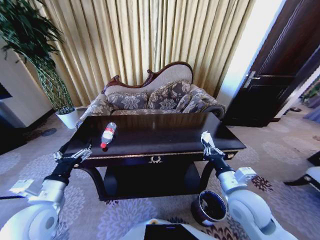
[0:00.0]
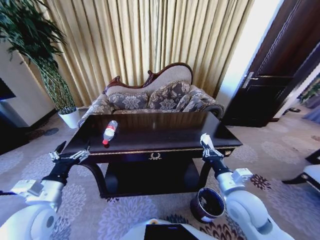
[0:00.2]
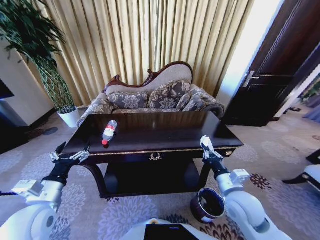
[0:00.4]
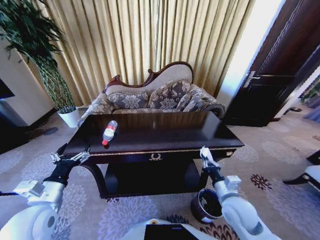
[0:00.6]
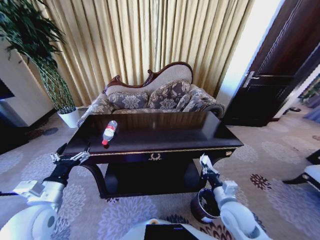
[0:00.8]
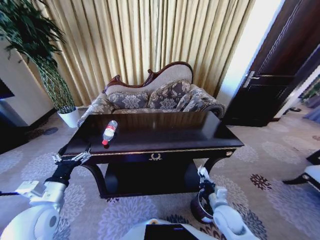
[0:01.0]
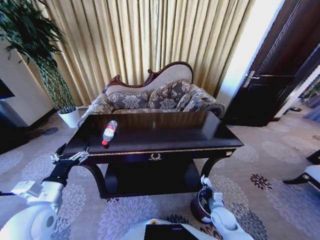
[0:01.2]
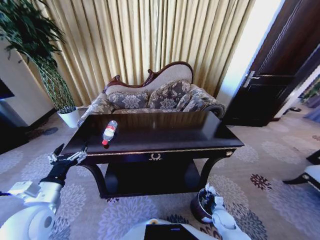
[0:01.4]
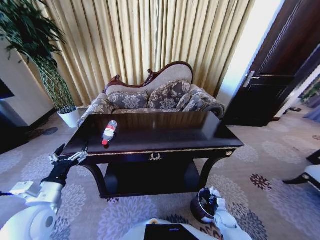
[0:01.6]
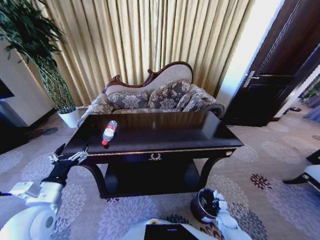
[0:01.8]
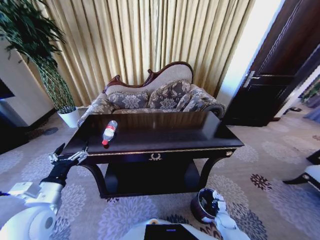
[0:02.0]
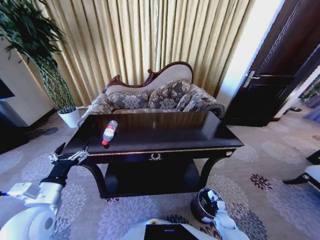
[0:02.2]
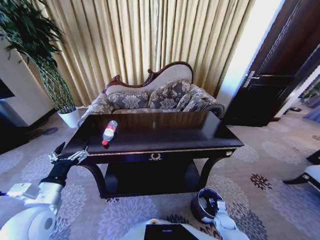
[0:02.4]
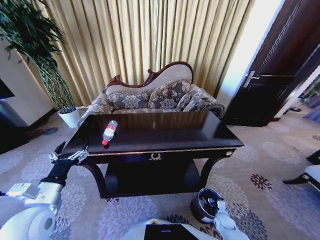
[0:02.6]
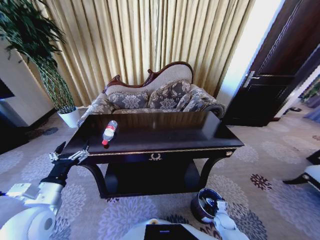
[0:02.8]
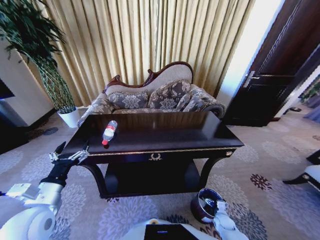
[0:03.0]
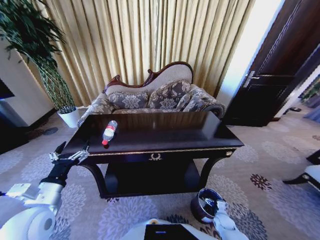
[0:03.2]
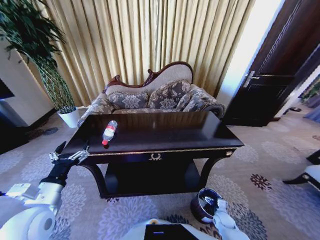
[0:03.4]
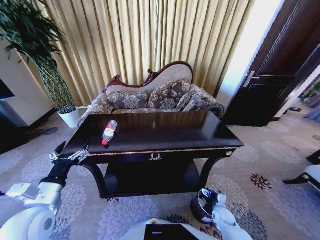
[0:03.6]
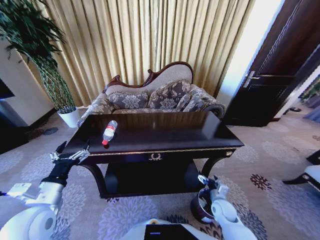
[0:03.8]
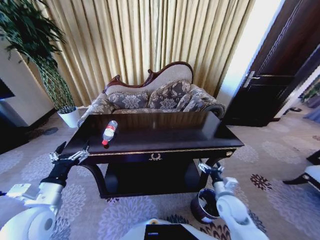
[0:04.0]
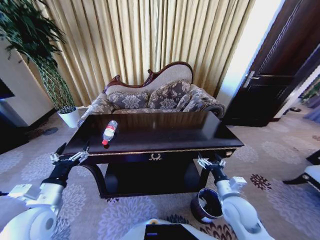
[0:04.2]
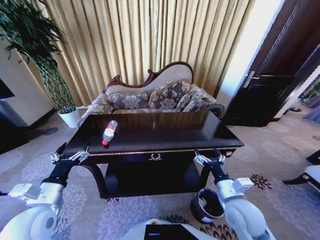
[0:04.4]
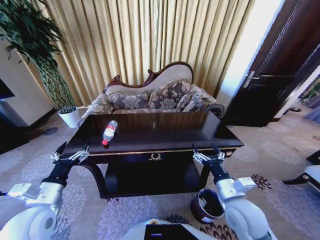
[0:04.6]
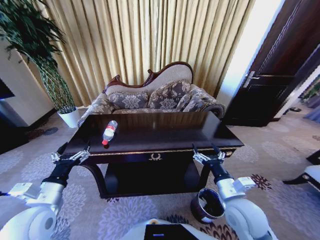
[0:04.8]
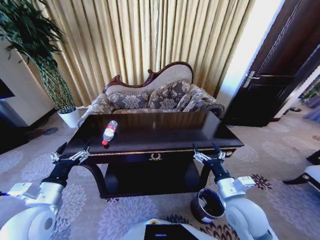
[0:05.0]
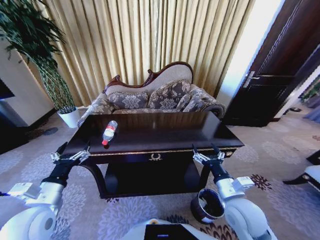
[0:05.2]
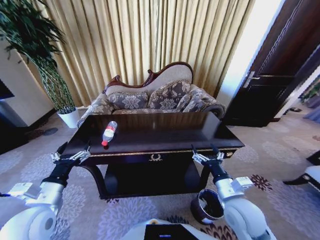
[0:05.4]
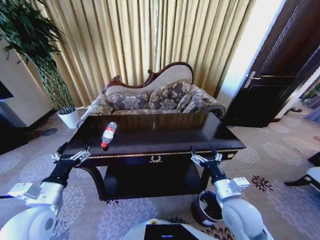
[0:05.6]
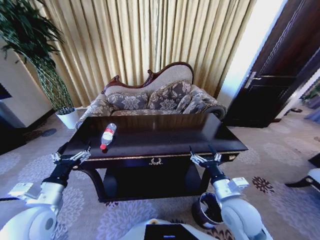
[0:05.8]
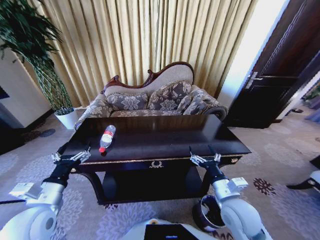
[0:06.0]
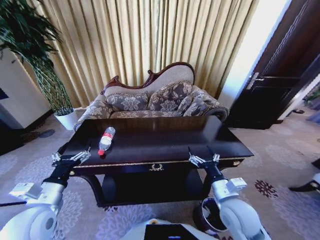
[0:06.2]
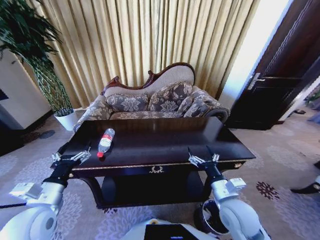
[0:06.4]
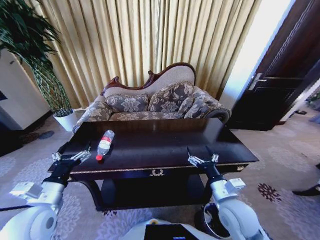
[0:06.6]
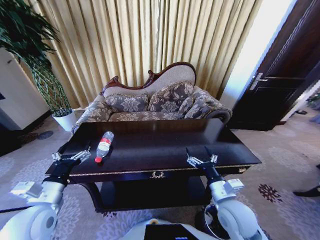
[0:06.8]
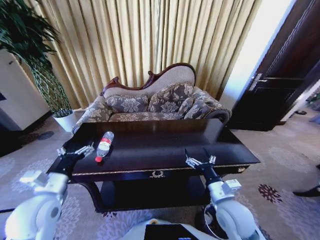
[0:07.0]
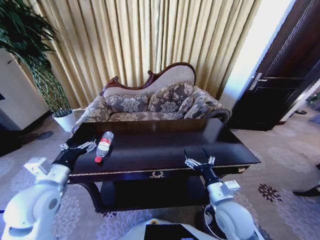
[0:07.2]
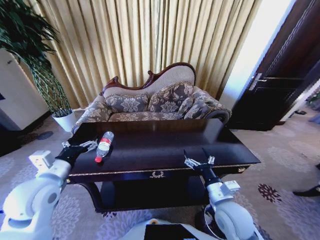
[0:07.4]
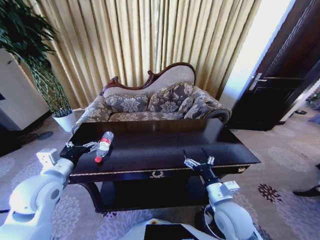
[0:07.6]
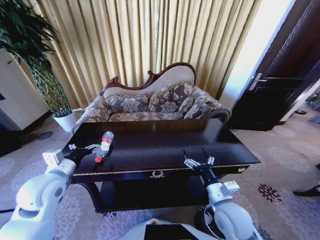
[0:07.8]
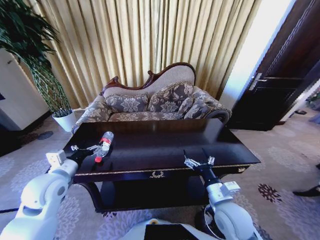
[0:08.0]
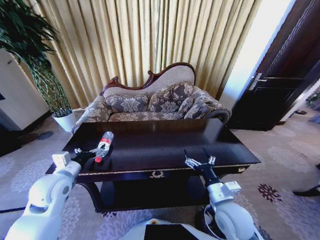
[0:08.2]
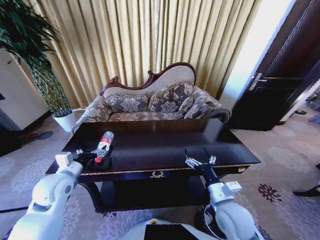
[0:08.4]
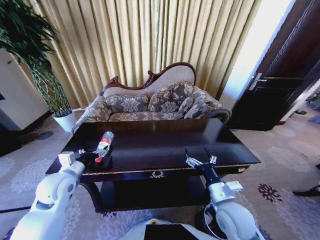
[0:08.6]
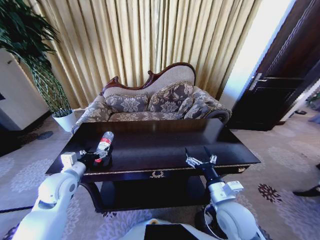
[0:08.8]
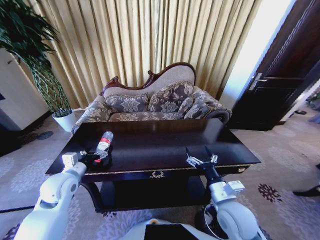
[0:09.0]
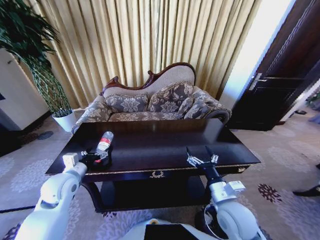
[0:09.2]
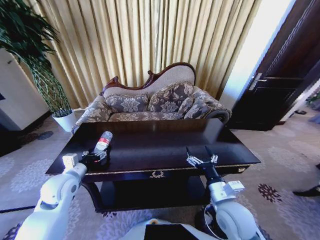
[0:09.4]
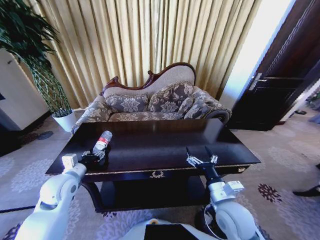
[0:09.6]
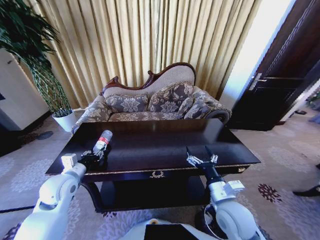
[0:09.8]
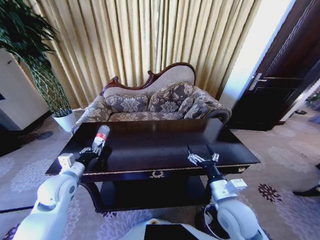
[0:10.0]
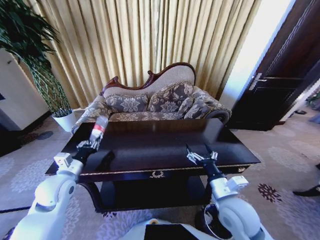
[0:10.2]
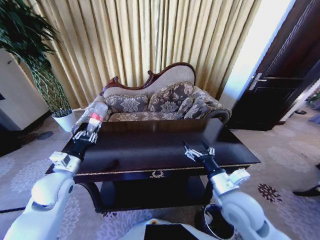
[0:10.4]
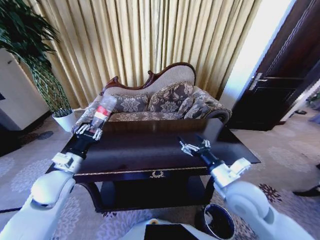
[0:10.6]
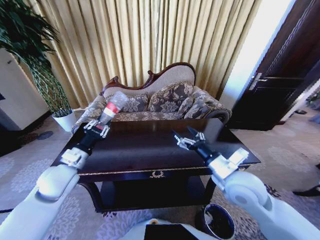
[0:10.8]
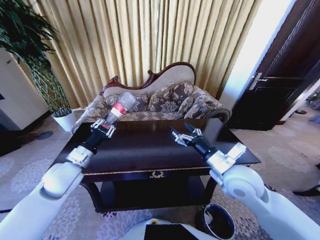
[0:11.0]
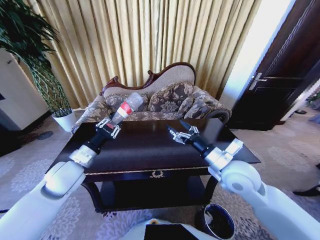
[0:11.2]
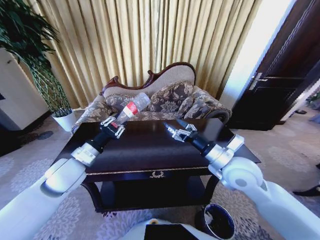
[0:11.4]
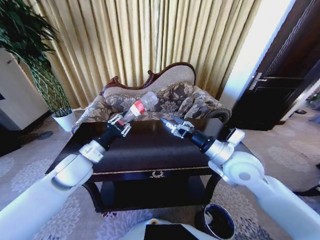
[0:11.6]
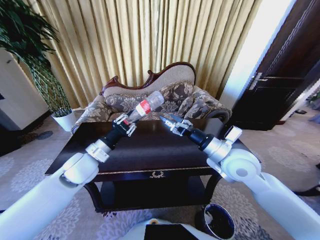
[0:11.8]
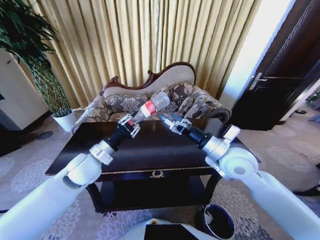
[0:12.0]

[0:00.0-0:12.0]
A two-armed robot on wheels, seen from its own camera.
Task of the whole recording: Move to the front of the table and place the trash on the table into the trash bin.
0:00.0 to 0:01.6: The right gripper is displaced downward by about 35 cm.
0:01.6 to 0:03.0: The right gripper opens its fingers.
0:03.0 to 0:04.4: The right gripper heads upward, covering approximately 35 cm.
0:06.0 to 0:07.6: The left gripper heads forward, covering some 5 cm.
0:07.6 to 0:09.0: The left gripper is displaced downward by about 5 cm.
0:09.0 to 0:10.4: The left gripper closes its fingers.
0:10.4 to 0:12.0: The right gripper travels forward and upward by some 15 cm; the left gripper travels to the right by roughly 10 cm.

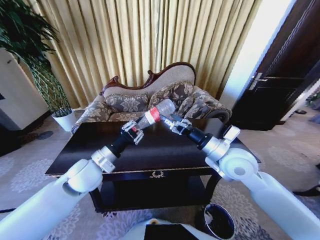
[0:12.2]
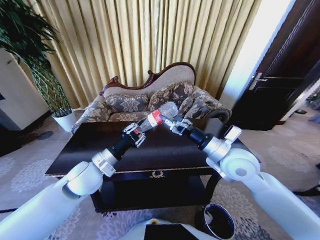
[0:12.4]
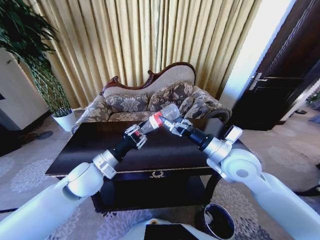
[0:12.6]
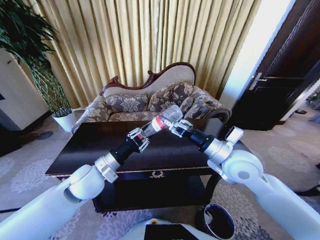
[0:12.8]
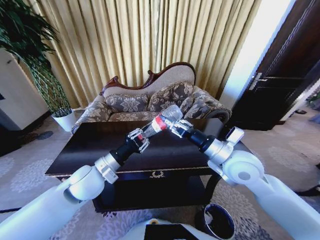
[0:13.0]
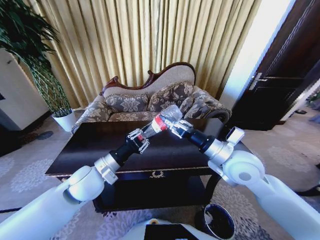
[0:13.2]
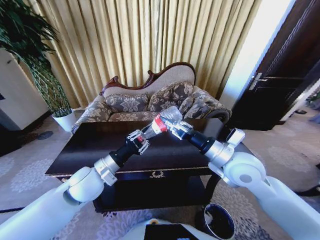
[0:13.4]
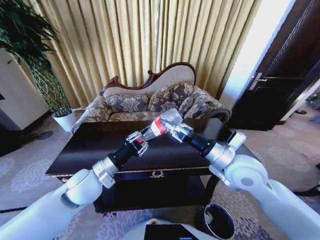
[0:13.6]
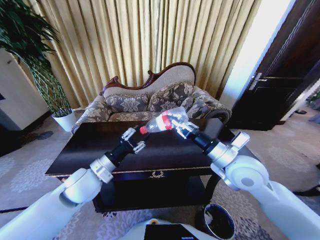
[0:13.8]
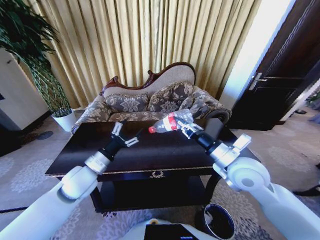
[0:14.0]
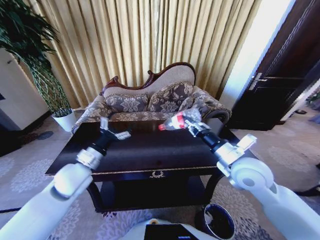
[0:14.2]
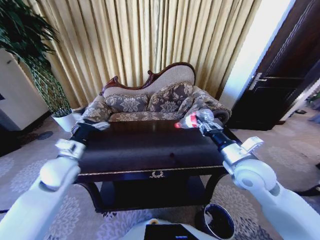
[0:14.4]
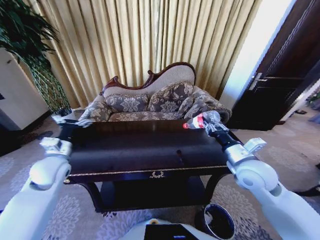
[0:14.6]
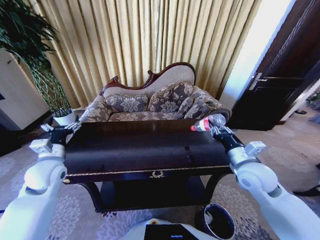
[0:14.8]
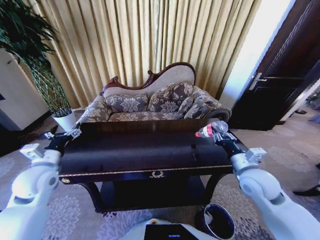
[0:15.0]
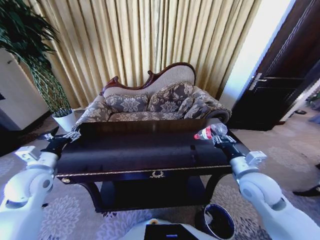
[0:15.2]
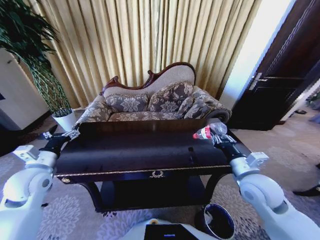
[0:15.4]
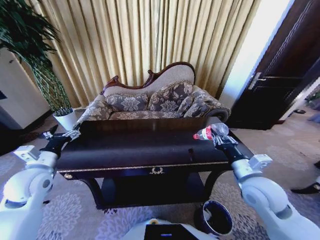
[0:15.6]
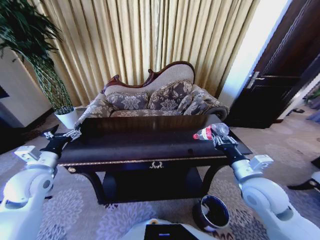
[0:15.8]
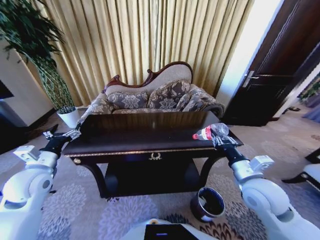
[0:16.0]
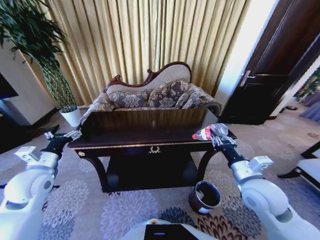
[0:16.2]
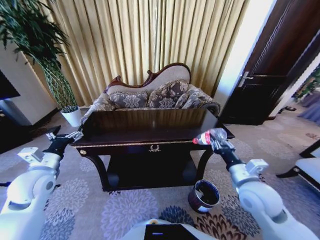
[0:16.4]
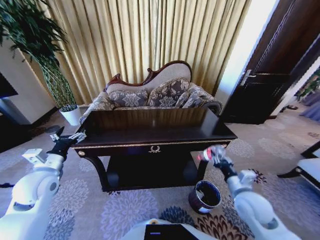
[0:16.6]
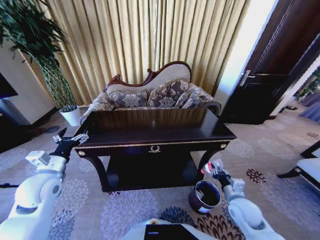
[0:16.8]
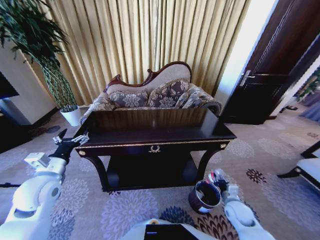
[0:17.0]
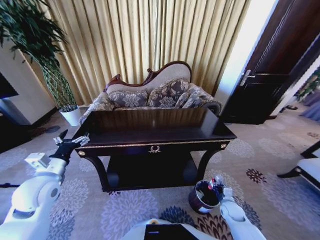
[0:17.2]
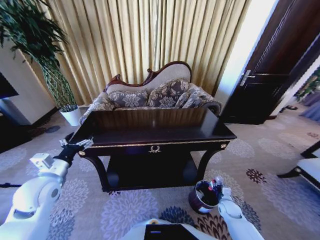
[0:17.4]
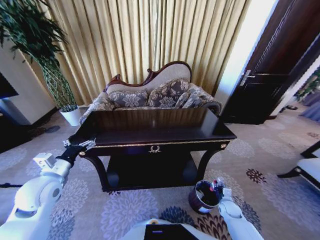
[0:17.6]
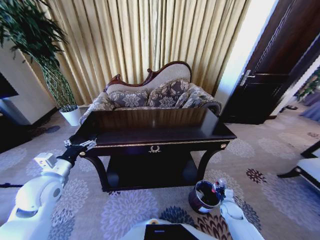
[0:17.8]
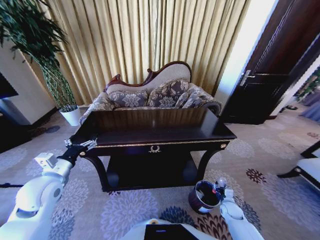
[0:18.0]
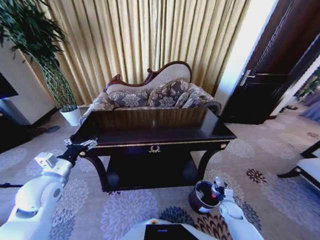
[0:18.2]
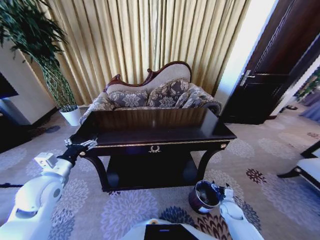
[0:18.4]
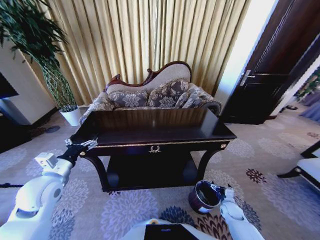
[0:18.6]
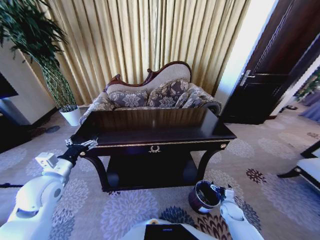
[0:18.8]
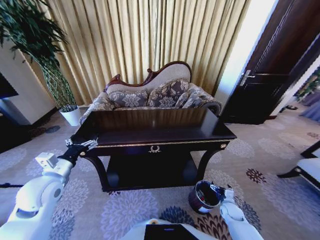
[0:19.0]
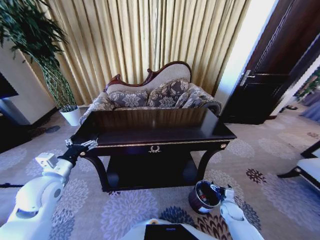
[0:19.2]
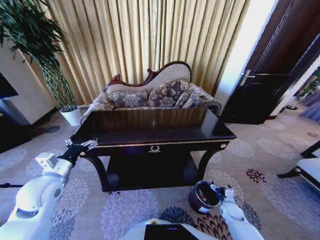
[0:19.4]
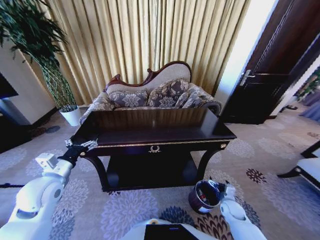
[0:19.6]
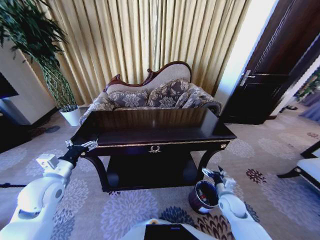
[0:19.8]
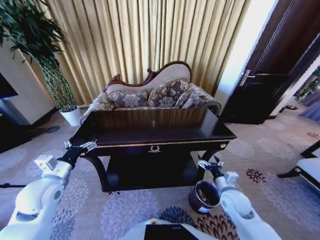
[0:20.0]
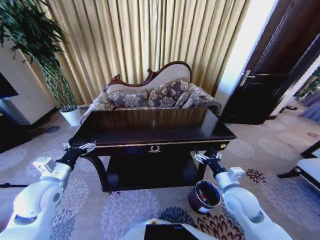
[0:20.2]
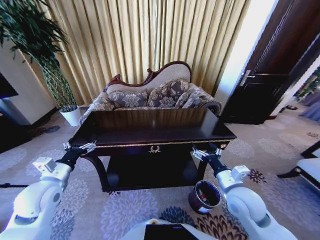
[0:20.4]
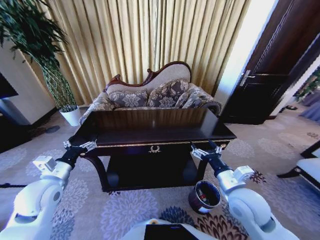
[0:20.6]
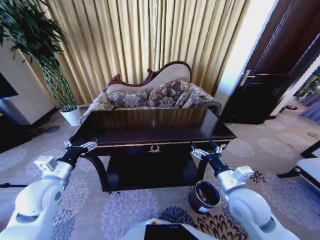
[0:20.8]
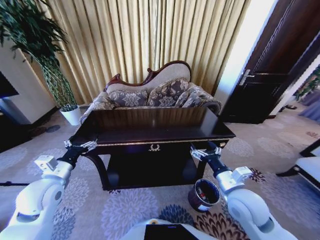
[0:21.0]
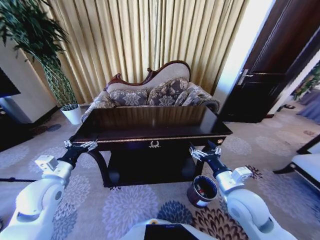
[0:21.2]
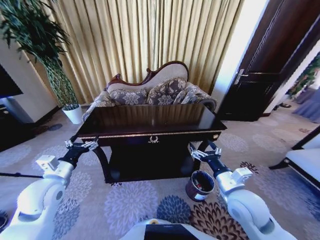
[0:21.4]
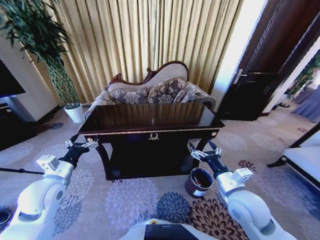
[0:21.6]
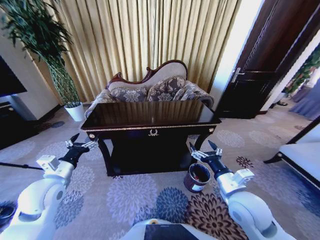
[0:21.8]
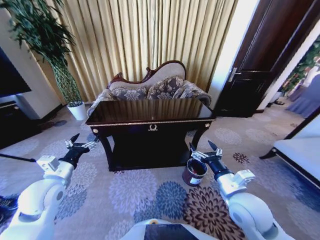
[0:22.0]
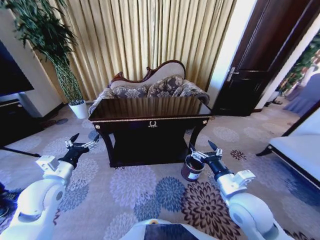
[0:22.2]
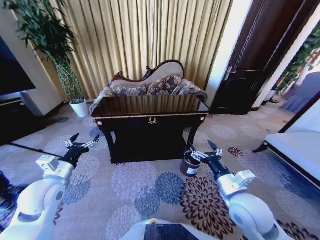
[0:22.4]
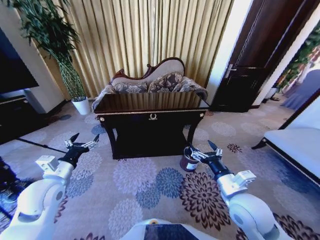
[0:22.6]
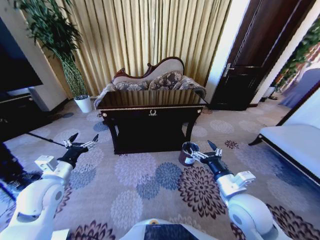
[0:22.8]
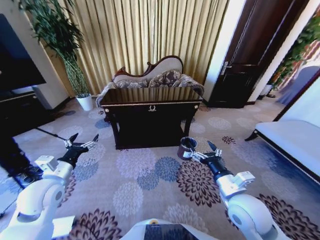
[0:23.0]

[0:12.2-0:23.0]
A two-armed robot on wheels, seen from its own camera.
Task of the whole recording: Move to the front of the table and place the trash on the table into the trash bin.
0:12.2 to 0:13.8: The right gripper closes up.
0:13.8 to 0:15.2: The left gripper heads to the left, covering some 15 cm, and opens its fingers. Meanwhile the right gripper travels to the right and downward by roughly 10 cm.
0:15.2 to 0:16.8: The right gripper is displaced downward by approximately 15 cm.
0:16.8 to 0:18.4: The right gripper goes about 20 cm downward, and opens up.
0:18.4 to 0:20.0: The right gripper shifts roughly 20 cm upward and to the left.
0:20.0 to 0:21.4: The right gripper shifts roughly 10 cm upward.
